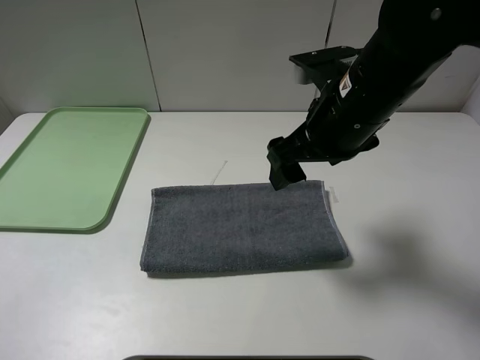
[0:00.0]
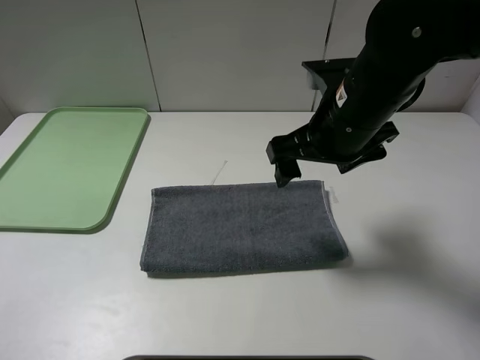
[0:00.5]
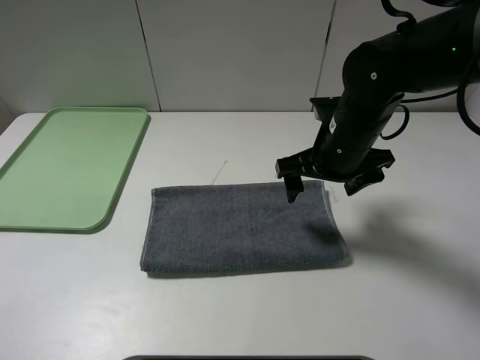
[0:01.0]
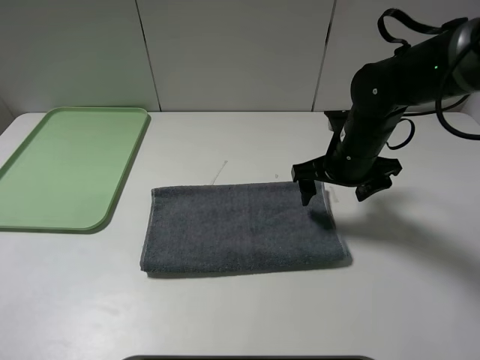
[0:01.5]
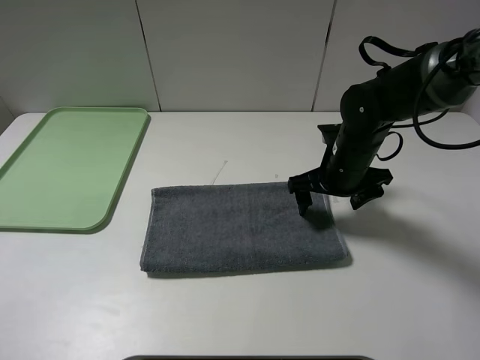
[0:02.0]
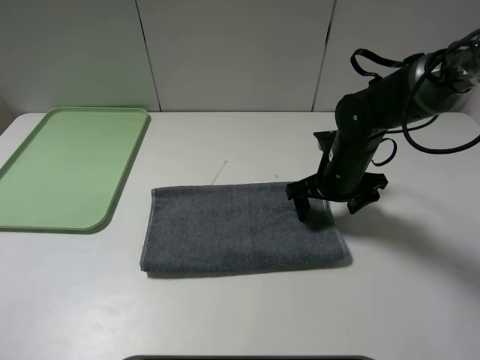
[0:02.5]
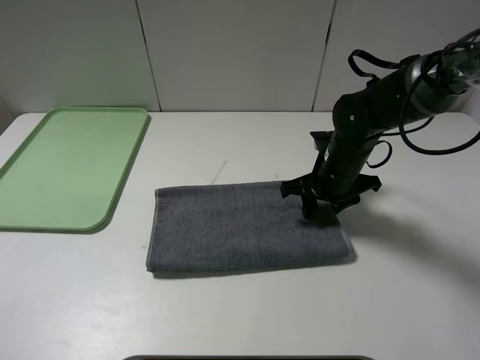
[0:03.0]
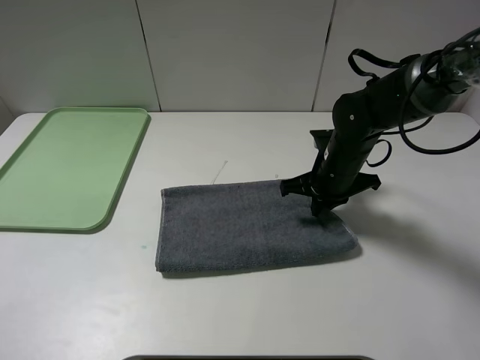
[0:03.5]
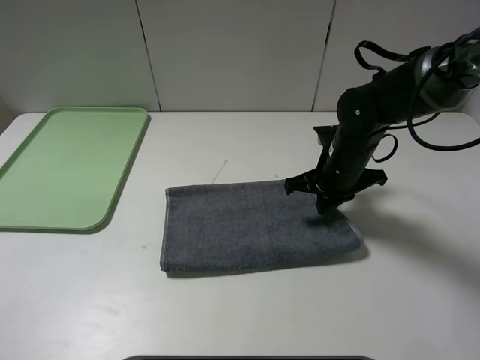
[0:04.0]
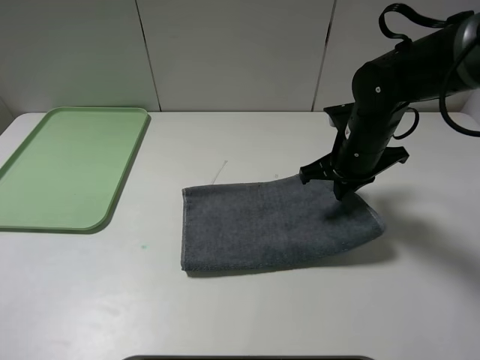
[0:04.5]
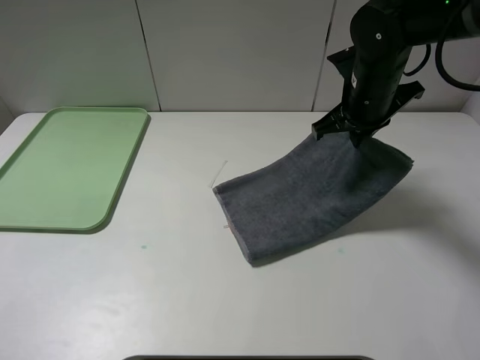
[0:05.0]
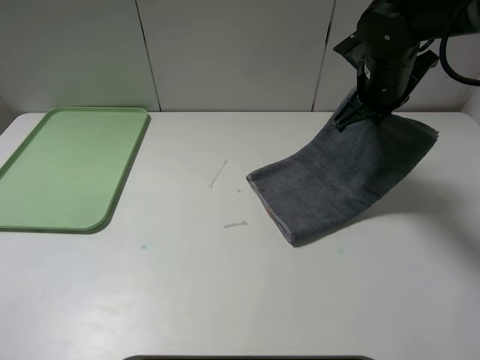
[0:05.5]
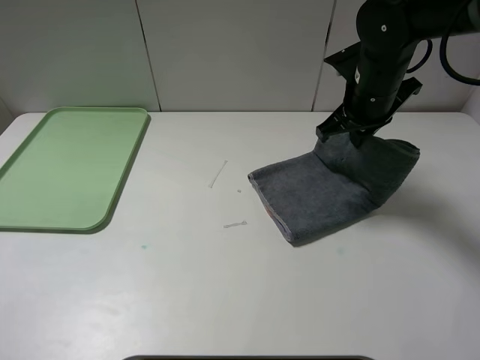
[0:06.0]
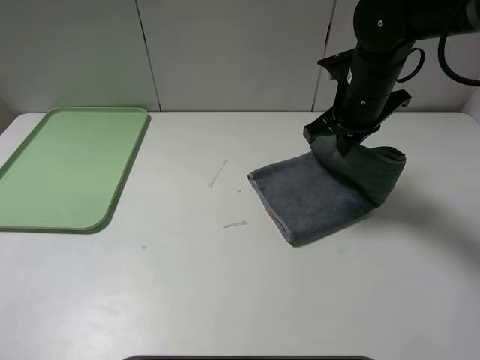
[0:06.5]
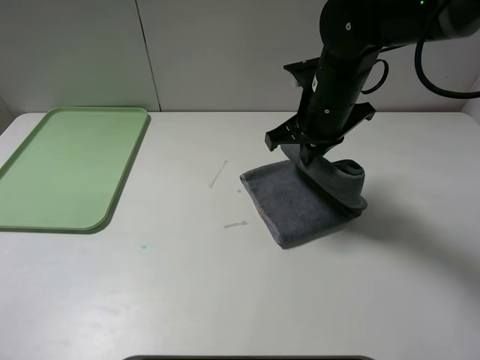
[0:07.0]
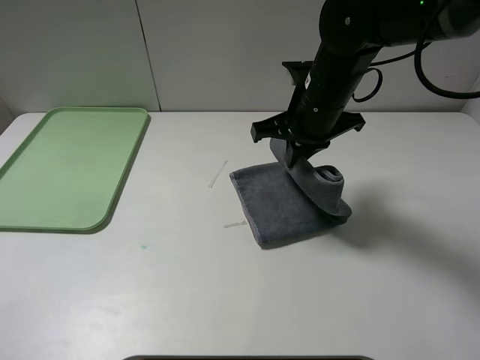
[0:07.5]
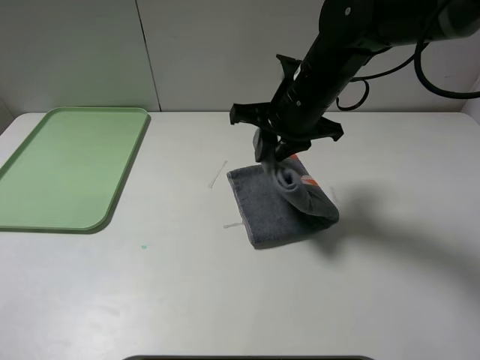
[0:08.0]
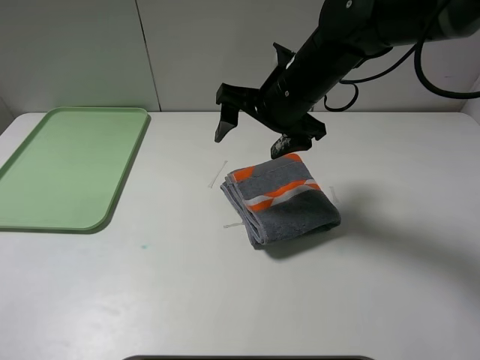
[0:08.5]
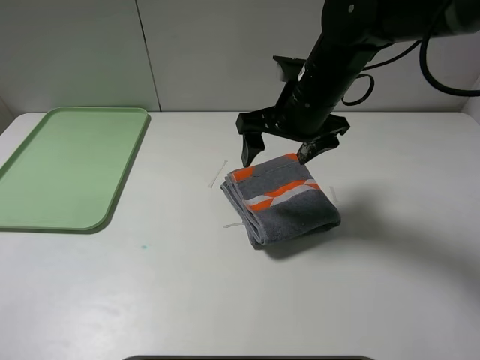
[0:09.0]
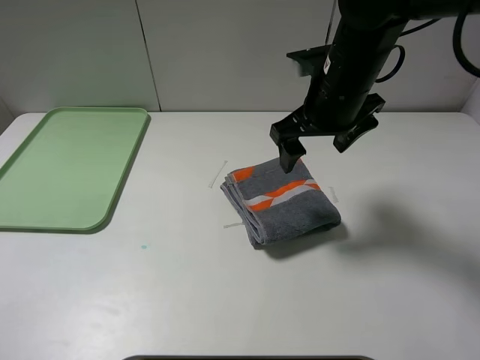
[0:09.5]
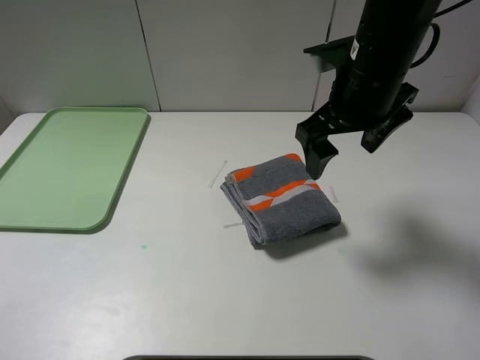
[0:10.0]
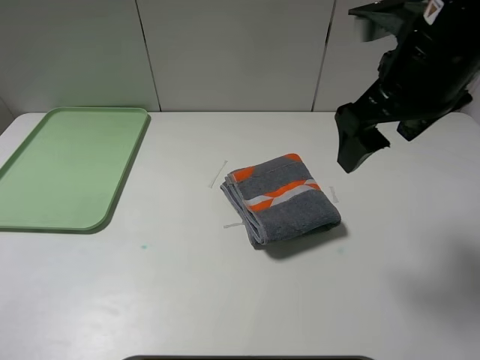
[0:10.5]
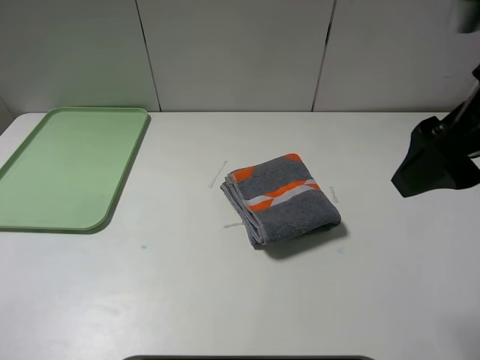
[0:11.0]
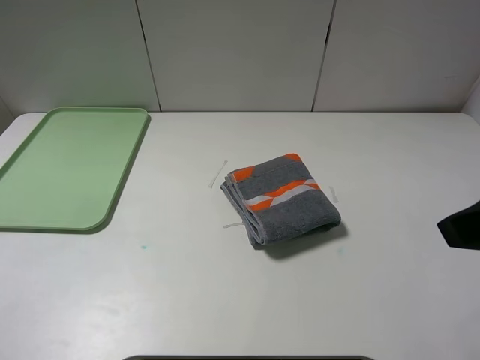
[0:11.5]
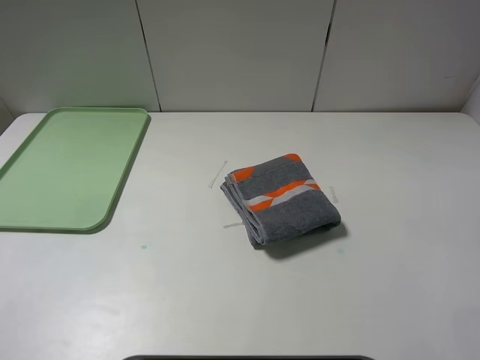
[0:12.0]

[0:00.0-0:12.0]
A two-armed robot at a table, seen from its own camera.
Step, 0:00.0 to 0:08.0: Fold the grey towel from right to left with right gripper.
0:00.0 to 0:02.0: The right gripper shifts some 15 cm downward and forward.
0:02.0 to 0:04.0: The right gripper closes up.
0:04.0 to 0:06.0: The right gripper shifts roughly 10 cm upward.
0:06.0 to 0:08.0: The right gripper goes approximately 10 cm to the left.
0:08.0 to 0:10.0: The right gripper shifts about 5 cm upward, and opens.
0:10.0 to 0:12.0: The right gripper travels backward and to the right by some 30 cm.

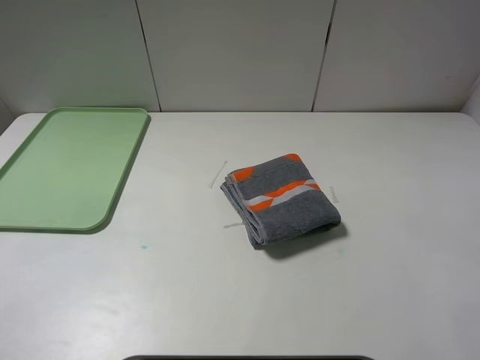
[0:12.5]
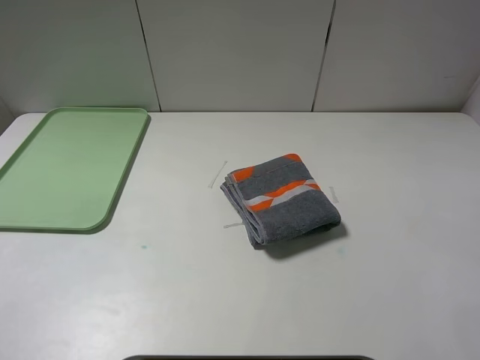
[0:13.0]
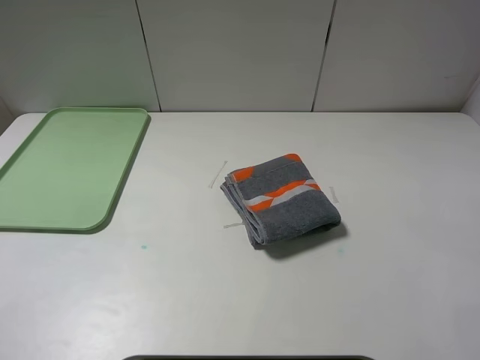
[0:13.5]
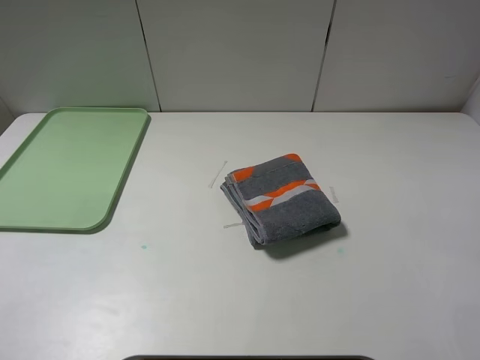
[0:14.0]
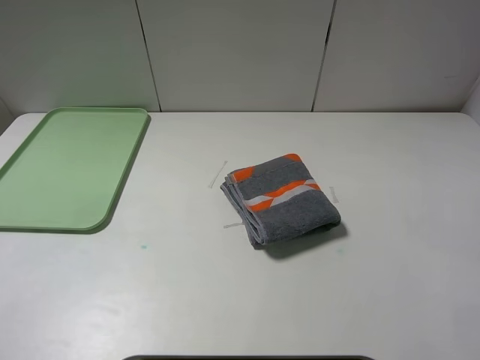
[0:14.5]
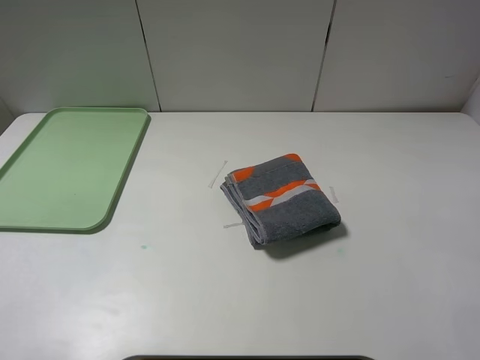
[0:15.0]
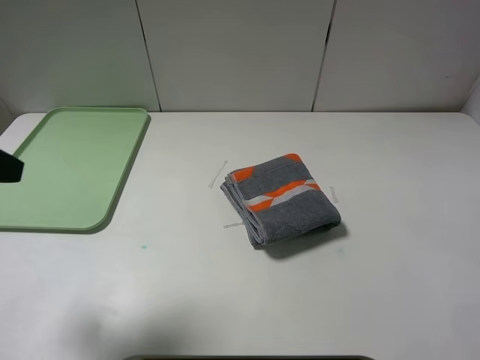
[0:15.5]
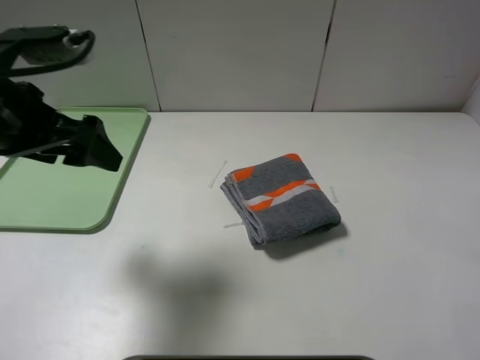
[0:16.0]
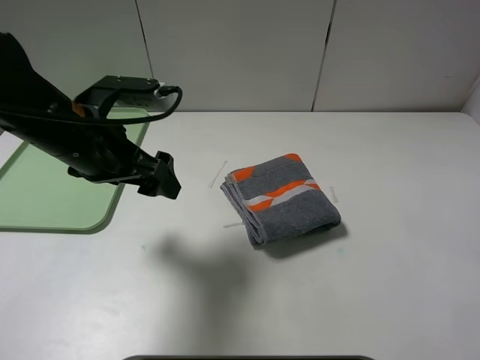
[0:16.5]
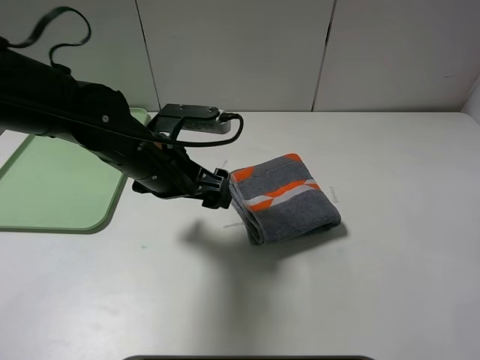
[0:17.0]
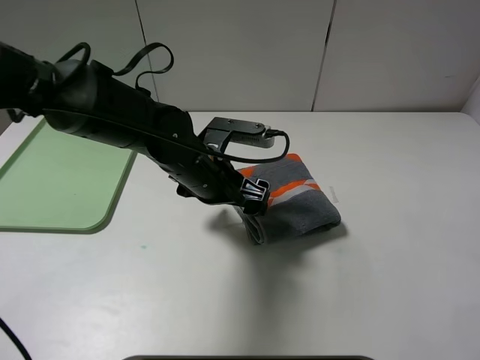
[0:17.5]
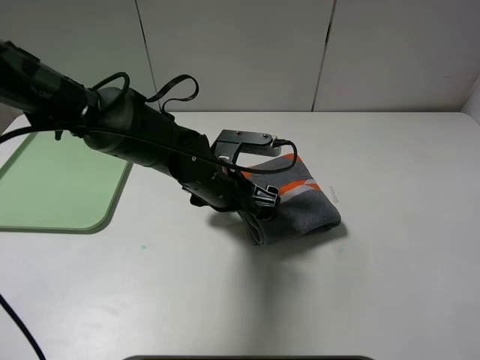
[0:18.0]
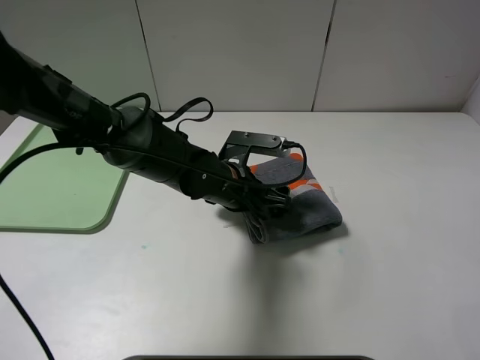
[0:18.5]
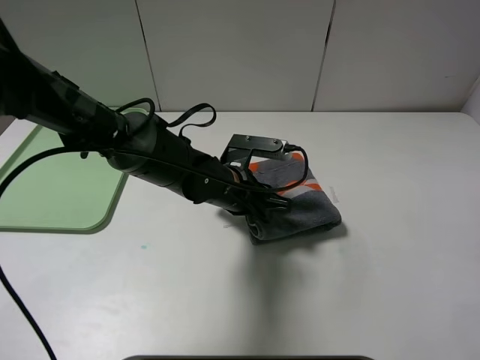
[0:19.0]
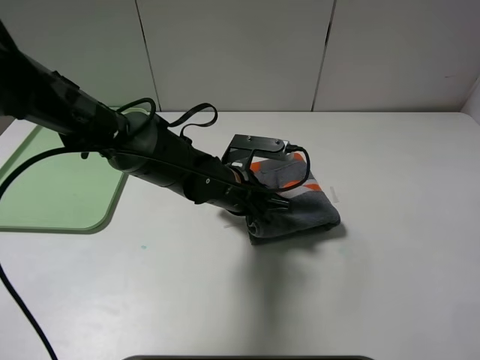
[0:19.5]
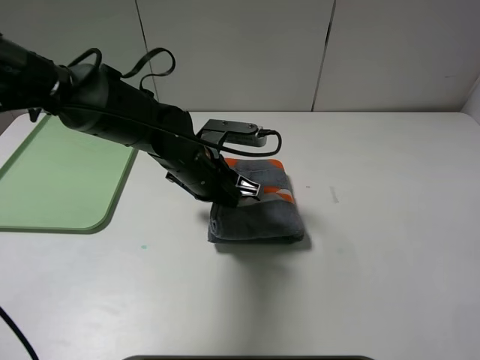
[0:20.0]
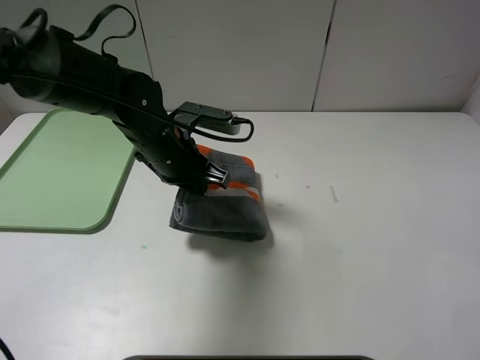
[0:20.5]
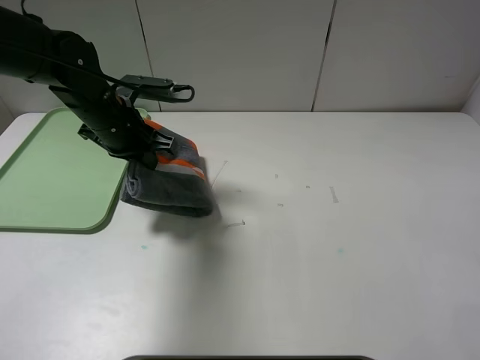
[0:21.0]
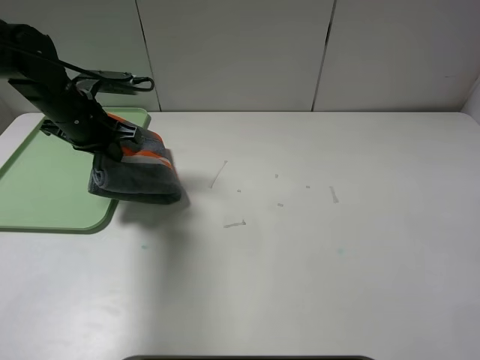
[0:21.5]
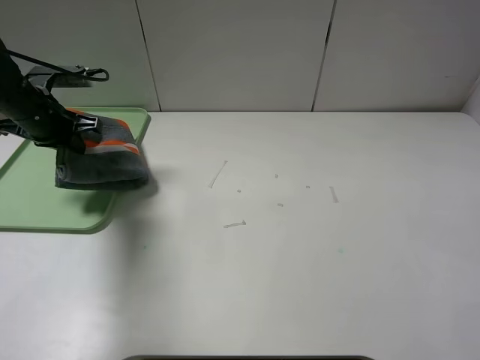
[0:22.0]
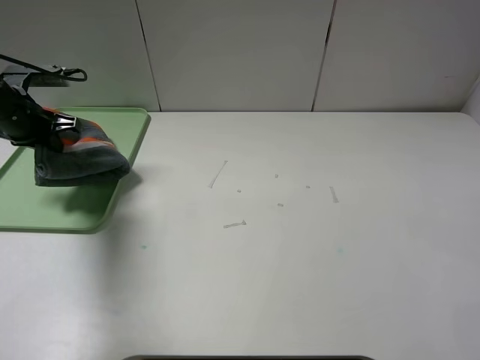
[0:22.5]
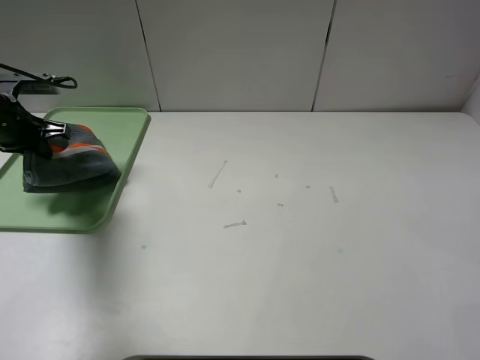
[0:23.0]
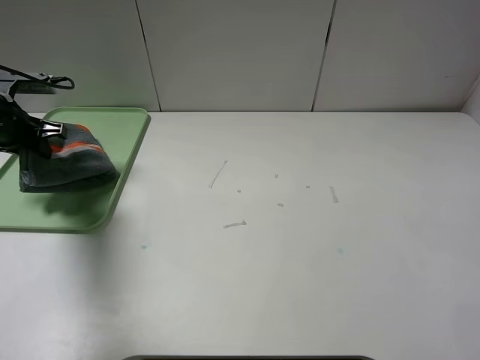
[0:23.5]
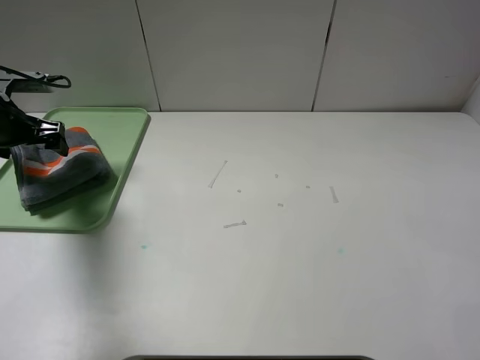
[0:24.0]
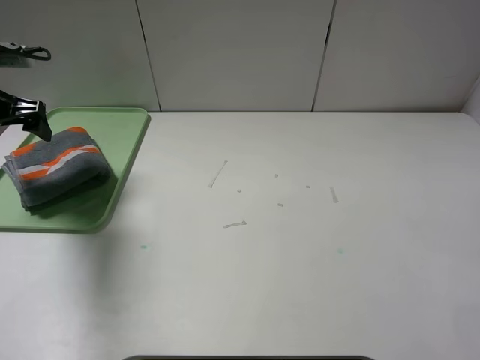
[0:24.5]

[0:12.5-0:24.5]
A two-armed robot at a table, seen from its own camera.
Step, 0:12.5 to 0:24.0: Place the folded grey towel on the tray with the left gripper.
0:12.5 to 0:14.5: The two grippers keep their place.
0:14.5 to 0:16.5: The left gripper moves forward and to the right, about 30 cm.
0:16.5 to 0:18.5: The left gripper heads to the right and downward, covering roughly 20 cm.
0:18.5 to 0:20.5: The left gripper shifts roughly 10 cm to the left and upward, and closes up.
0:20.5 to 0:22.5: The left gripper goes about 25 cm to the left.
0:22.5 to 0:24.5: The left gripper moves about 5 cm, and opens its fingers.

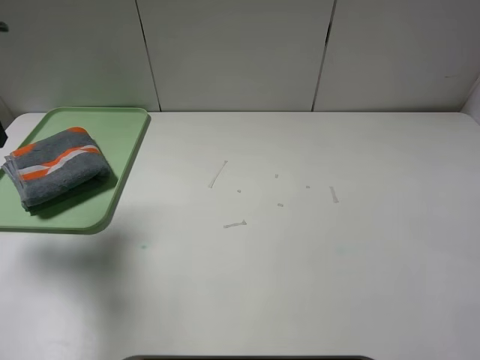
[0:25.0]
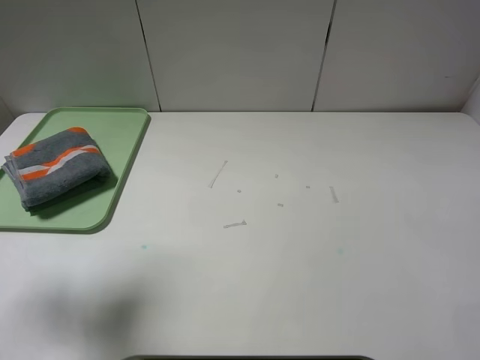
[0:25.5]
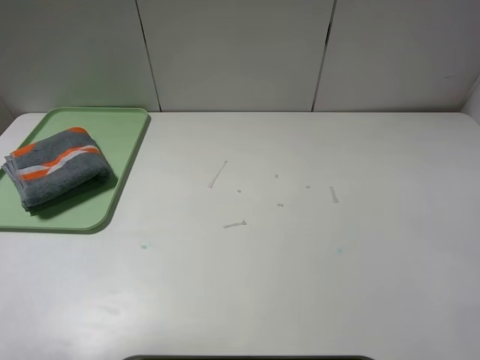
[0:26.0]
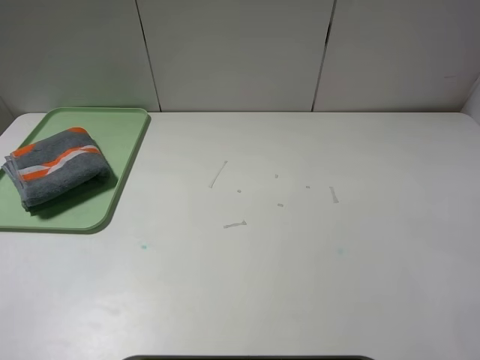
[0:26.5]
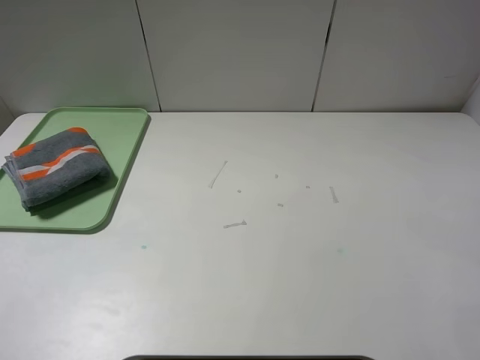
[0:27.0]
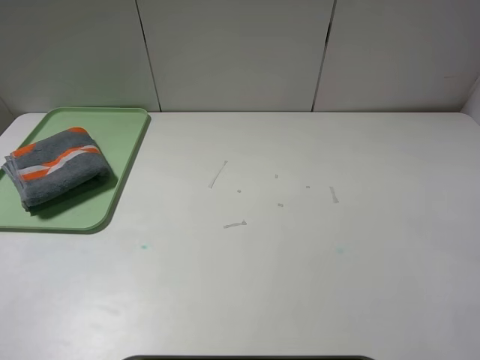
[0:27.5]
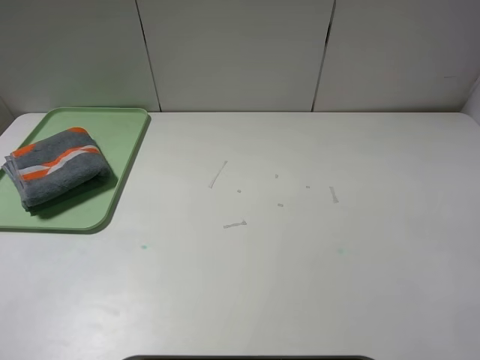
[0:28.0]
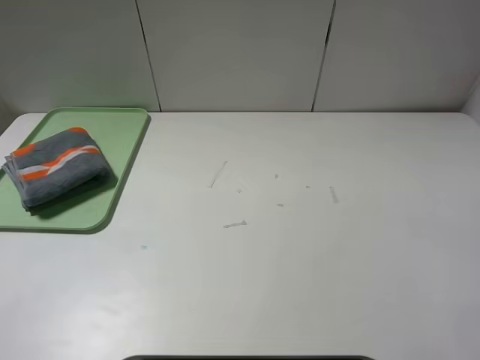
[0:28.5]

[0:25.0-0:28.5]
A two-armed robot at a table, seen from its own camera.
0:25.0 to 0:27.0: The left gripper travels backward by approximately 25 cm.
0:27.0 to 0:28.5: The two grippers keep their place.
